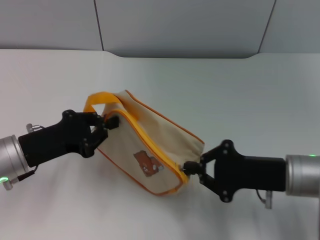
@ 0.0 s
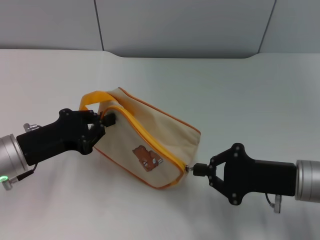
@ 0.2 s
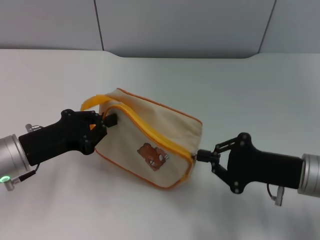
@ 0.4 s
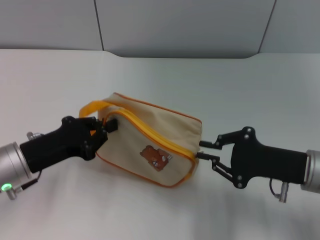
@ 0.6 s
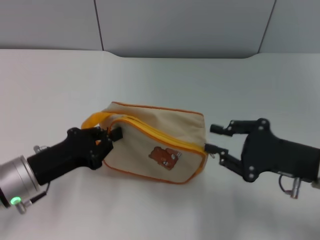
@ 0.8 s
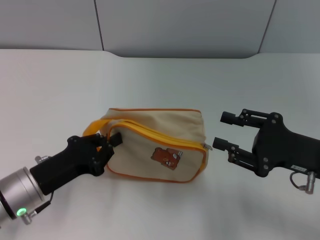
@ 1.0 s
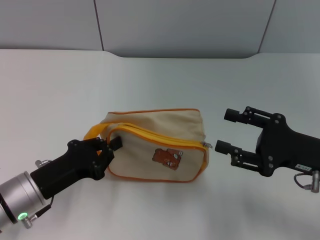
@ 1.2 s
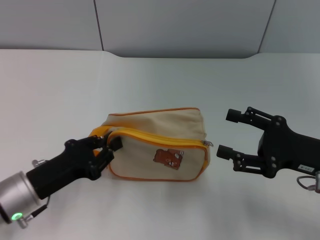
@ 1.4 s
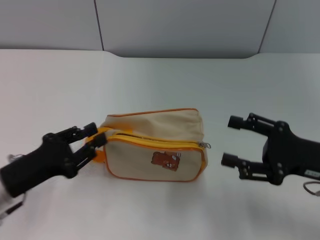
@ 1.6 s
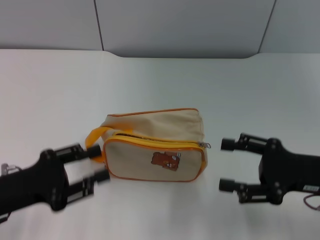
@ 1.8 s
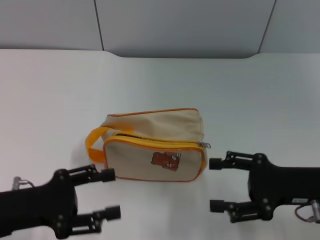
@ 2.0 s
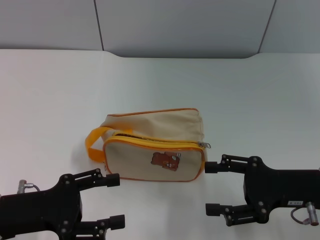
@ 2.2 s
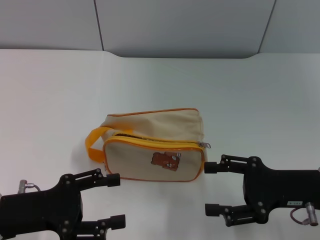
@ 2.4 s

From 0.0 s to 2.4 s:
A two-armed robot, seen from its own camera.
Step, from 1.2 s to 1.6 s: Place the bag on the table with left gripper.
From 0.0 s to 1.2 s: The left gripper moves roughly 5 cm, while the right gripper changes place by approximately 5 cm, and opens its fingers.
From 1.2 s to 2.4 s: The right gripper opens up. The left gripper ends up roughly 5 cm from where it was, and opens.
